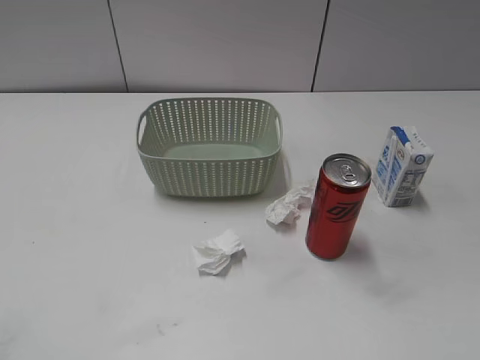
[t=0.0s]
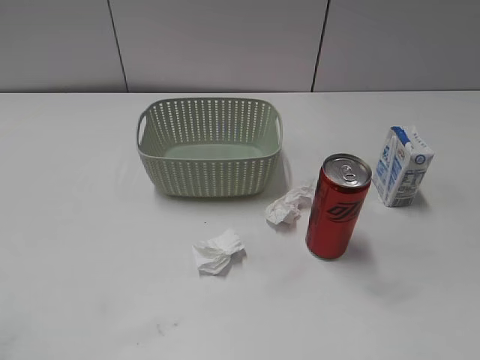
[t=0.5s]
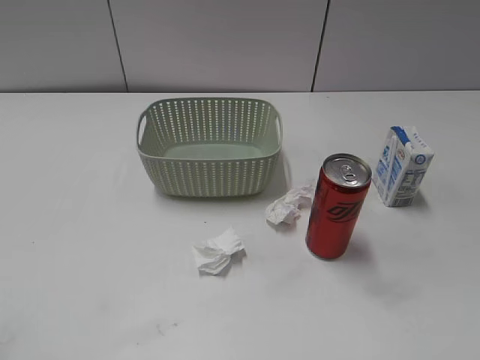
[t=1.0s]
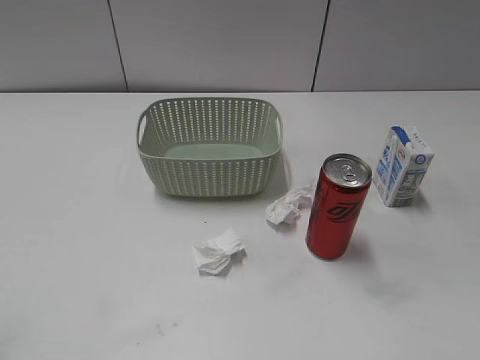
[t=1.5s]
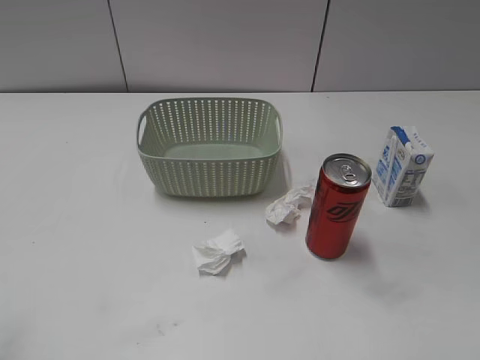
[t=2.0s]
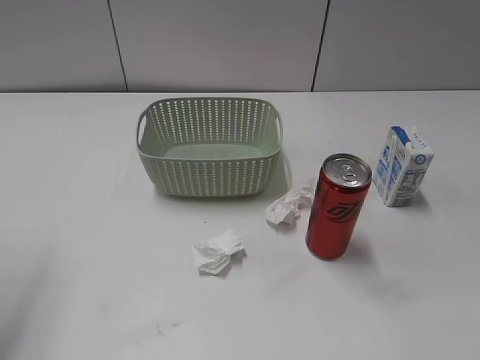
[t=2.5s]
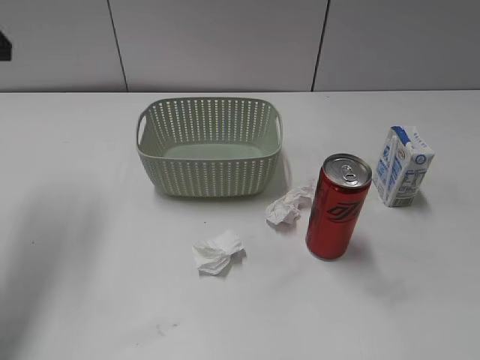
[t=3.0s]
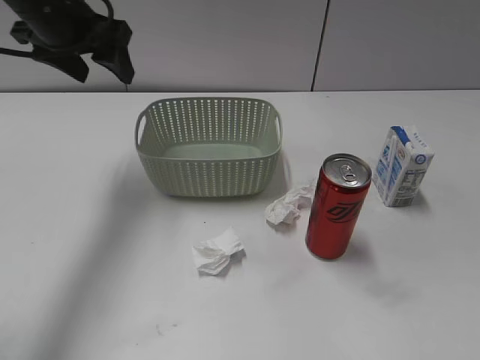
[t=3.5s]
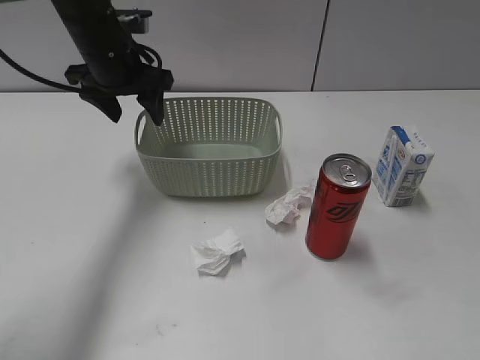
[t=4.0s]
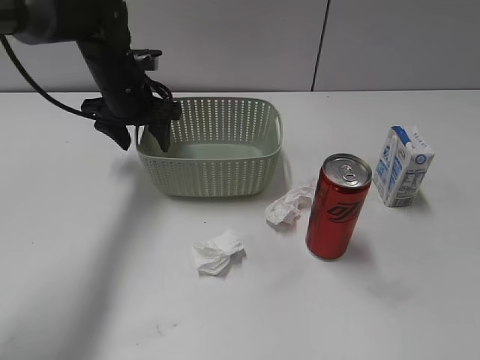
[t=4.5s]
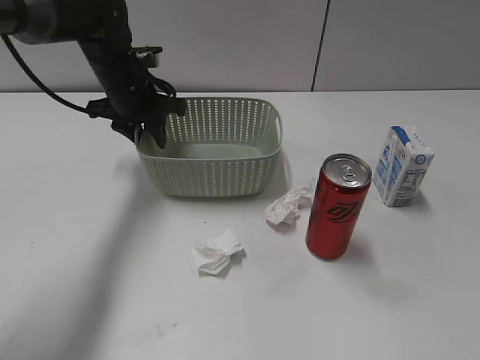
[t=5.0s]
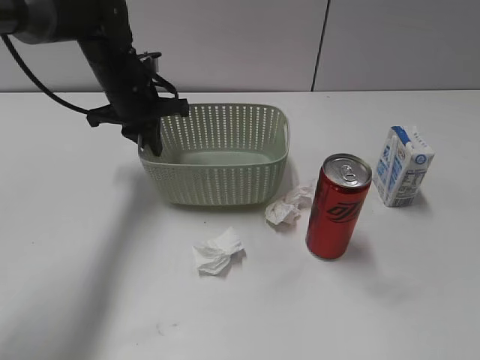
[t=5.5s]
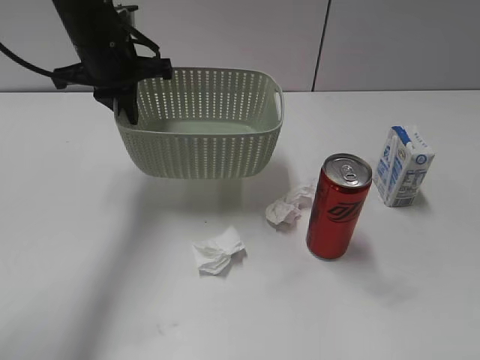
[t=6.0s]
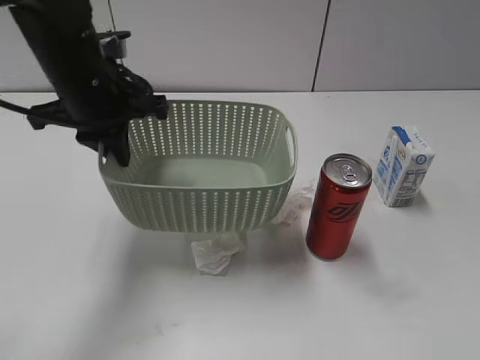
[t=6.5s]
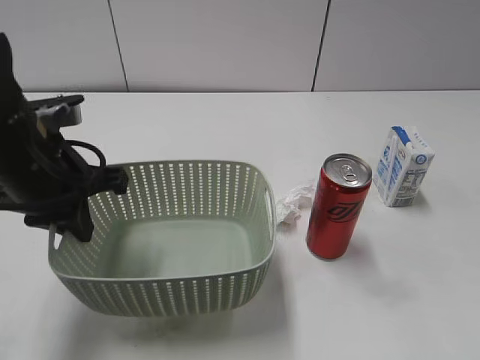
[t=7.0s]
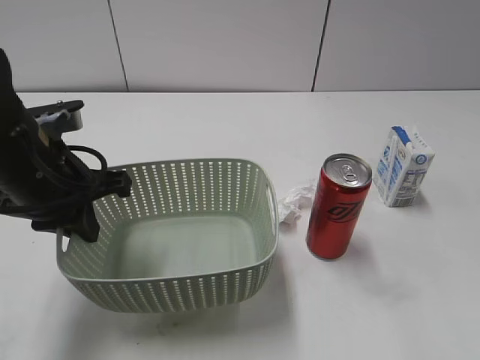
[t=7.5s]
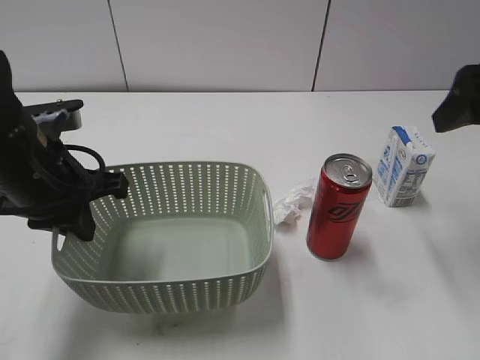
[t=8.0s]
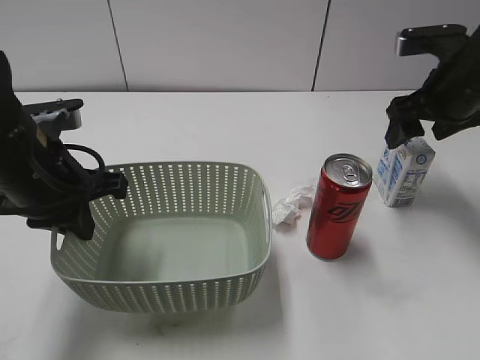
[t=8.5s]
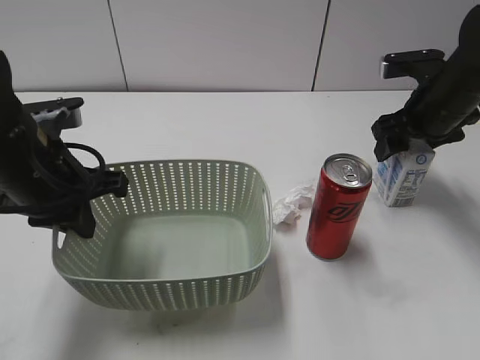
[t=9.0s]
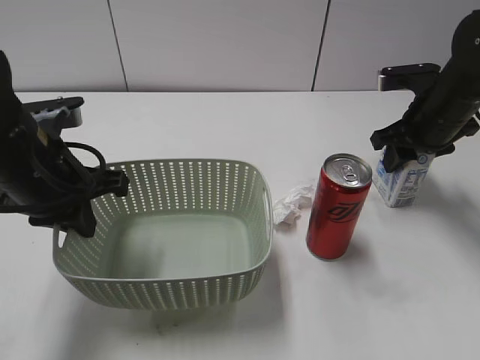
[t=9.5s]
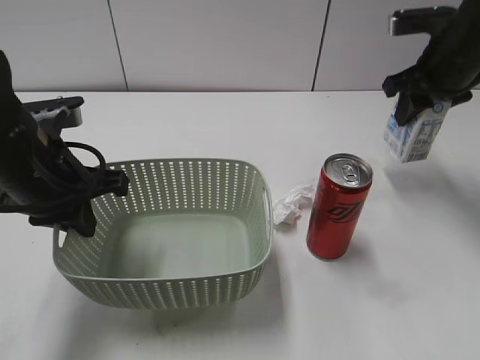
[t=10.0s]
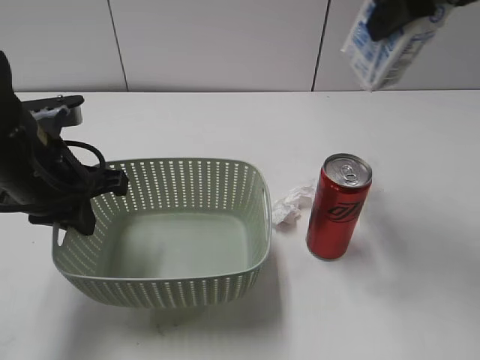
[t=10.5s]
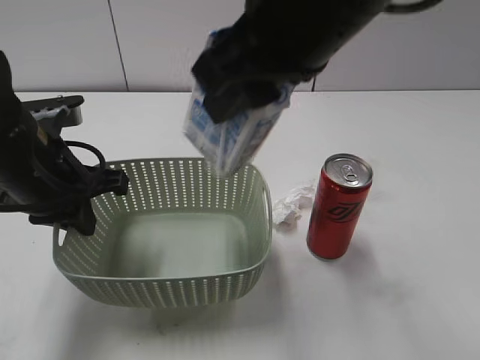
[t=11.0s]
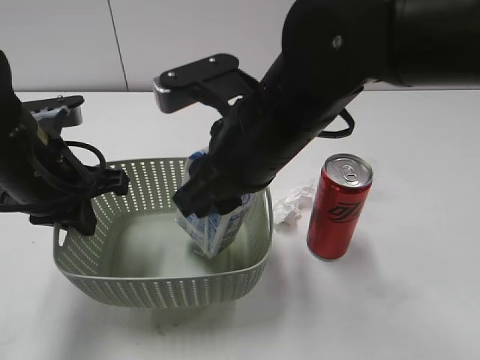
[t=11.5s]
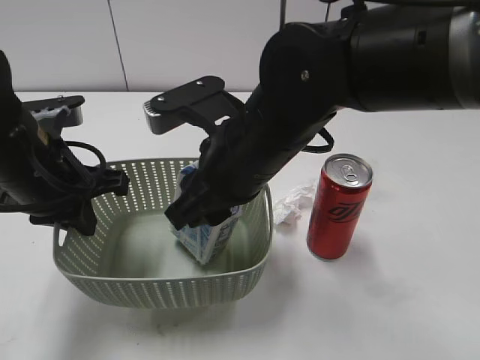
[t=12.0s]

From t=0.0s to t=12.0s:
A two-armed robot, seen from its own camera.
Step, from t=3.0s to t=5.0s: Grasp the basket with left gripper.
Step, from t=5.5s to t=7.0s: Lift the basket with left gripper.
Step, from t=7.5s to t=9.5s: Grasp the milk with right gripper.
From t=2.0s to t=4.0s: The left gripper shifts roughly 40 cm forward and to the right.
From t=4.0s to t=6.0s: The left gripper closes up.
From t=6.0s to t=8.0s: The right gripper heads forward, covering about 25 cm. Meanwhile the left gripper goes some 15 cm backward.
From t=8.0s to t=10.0s: The right gripper moves forward and downward, about 15 cm, and closes.
From t=10.0s to t=12.0s: The right gripper shifts about 30 cm to the left and backward.

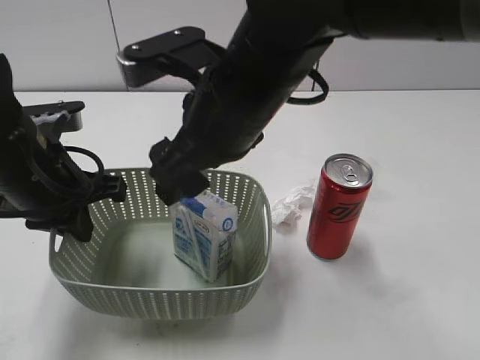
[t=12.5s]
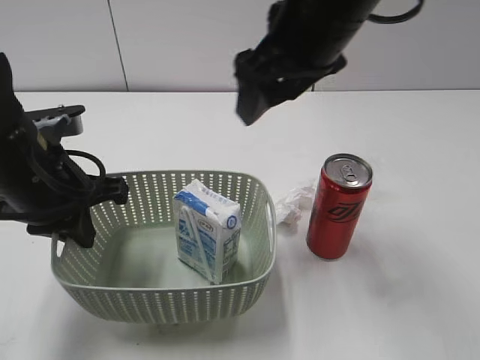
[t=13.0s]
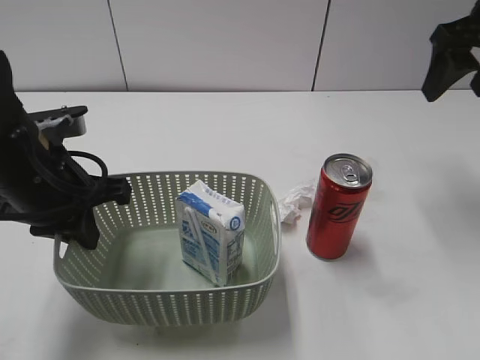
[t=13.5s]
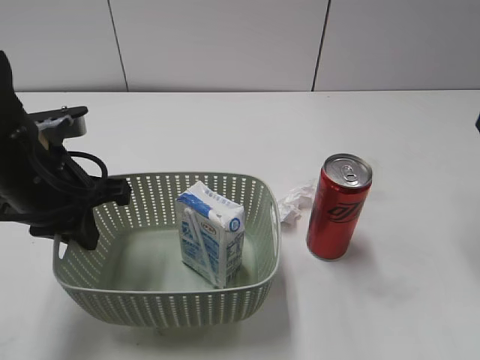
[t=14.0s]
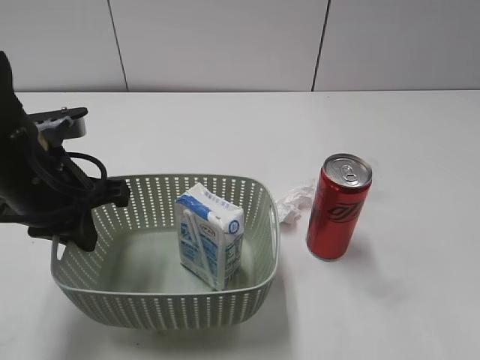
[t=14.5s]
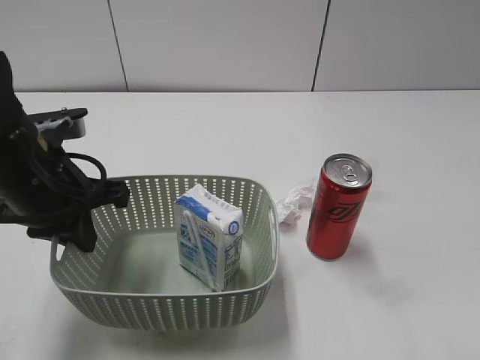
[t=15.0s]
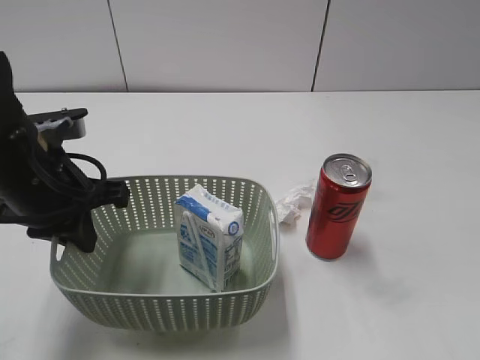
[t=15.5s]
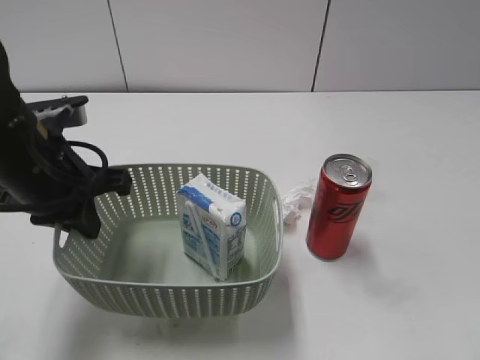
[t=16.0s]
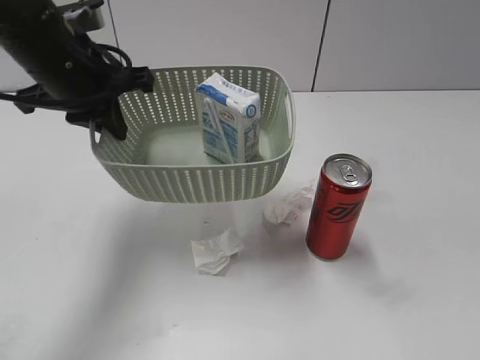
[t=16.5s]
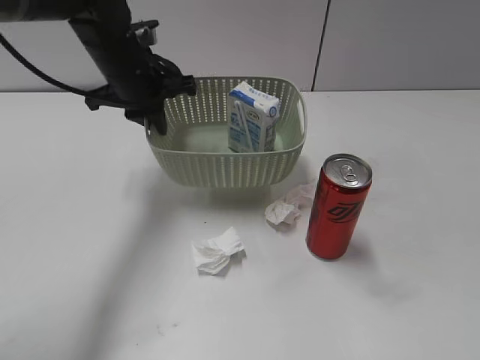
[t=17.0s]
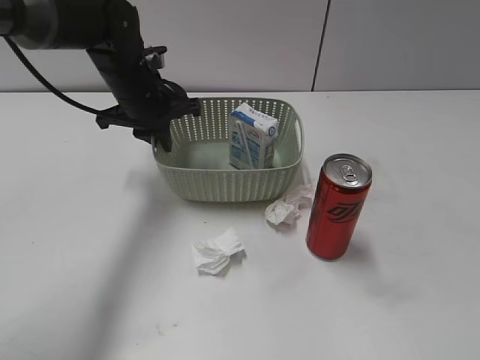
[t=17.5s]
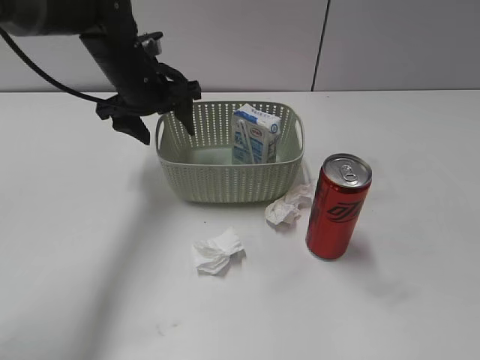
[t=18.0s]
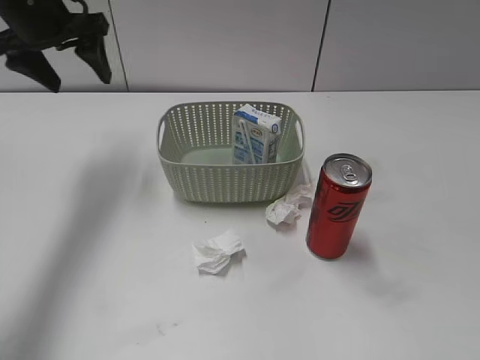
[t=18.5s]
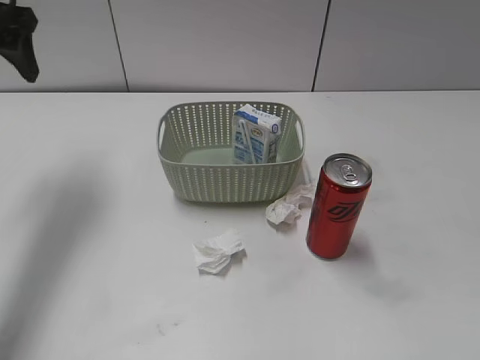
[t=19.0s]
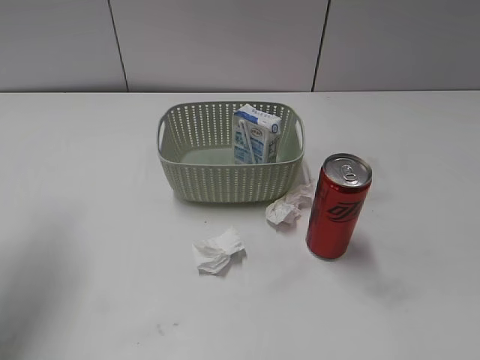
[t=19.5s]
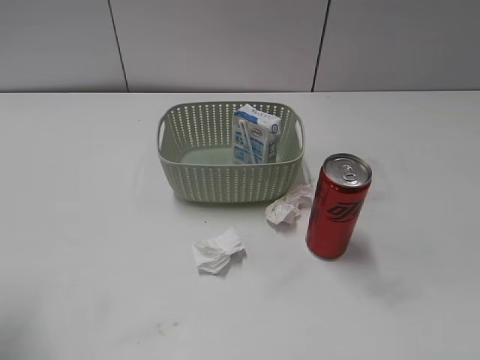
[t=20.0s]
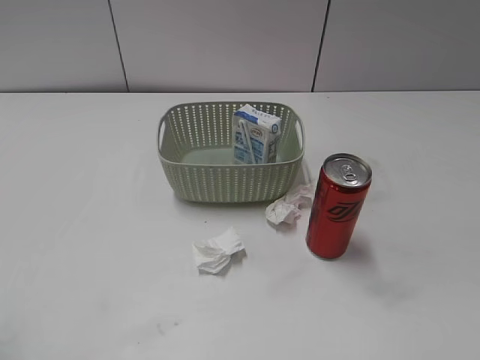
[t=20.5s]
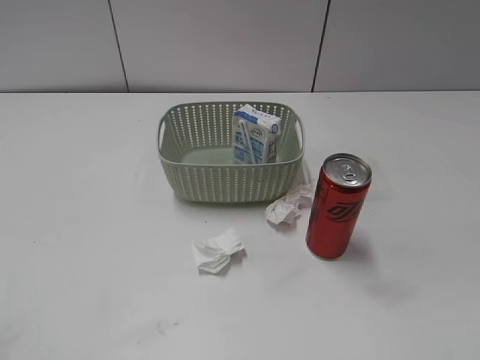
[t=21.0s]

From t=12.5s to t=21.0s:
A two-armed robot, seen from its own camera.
Step, from t=13.0s to t=18.0s: Place the basket on the table with left gripper.
From t=12.5s to t=14.5s: The right gripper goes about 30 cm to the right.
From t=14.5s to t=16.5s: The right gripper moves backward, some 15 cm. Meanwhile the left gripper heads forward and upward, covering approximately 10 cm.
From t=16.5s to t=19.0s: The left gripper moves to the left and upward, some 15 cm, and opens up.
From t=19.0s to t=21.0s: The left gripper is displaced backward by some 35 cm.

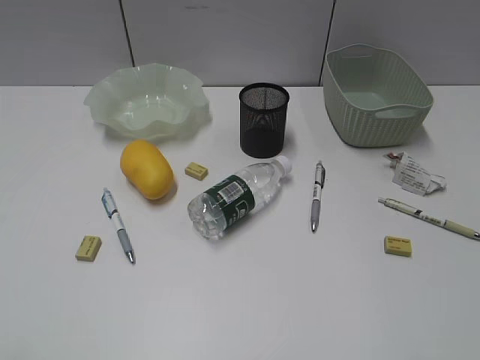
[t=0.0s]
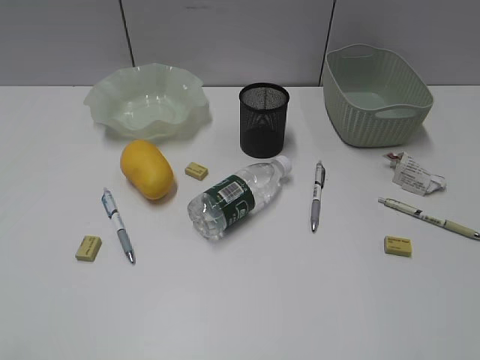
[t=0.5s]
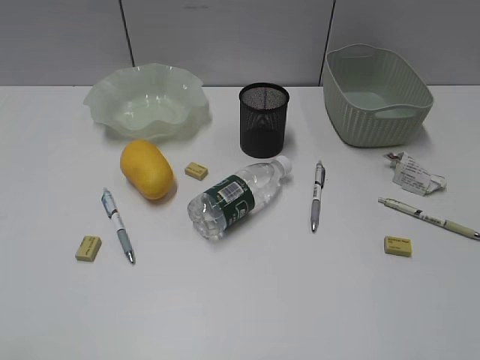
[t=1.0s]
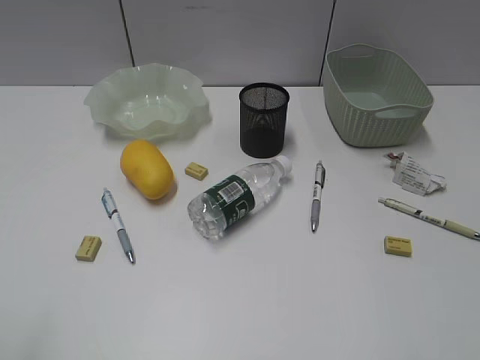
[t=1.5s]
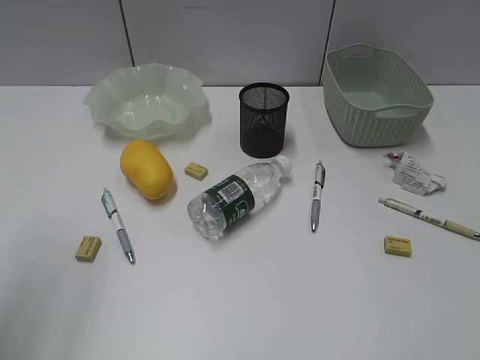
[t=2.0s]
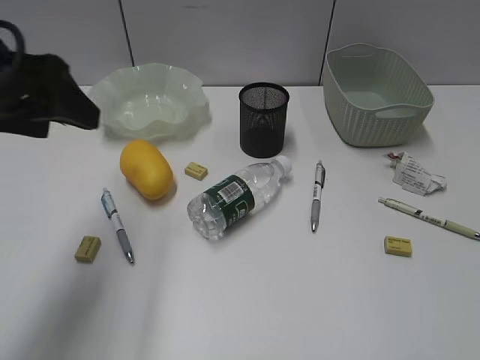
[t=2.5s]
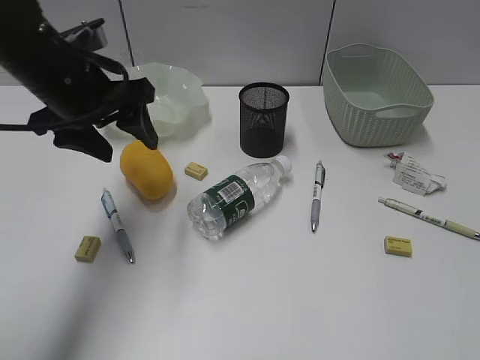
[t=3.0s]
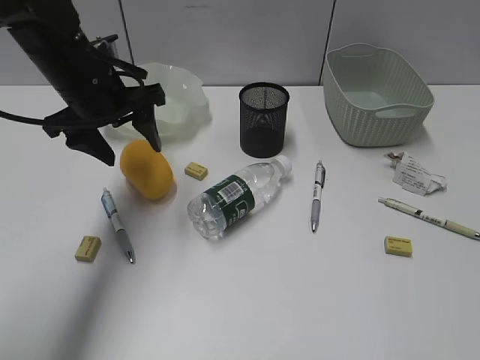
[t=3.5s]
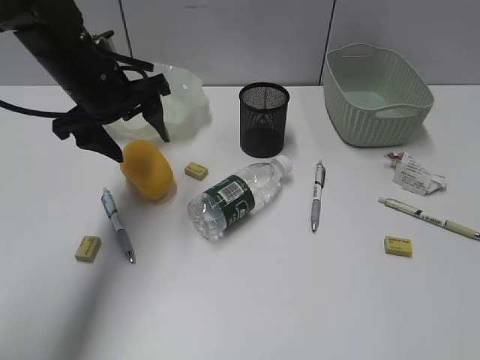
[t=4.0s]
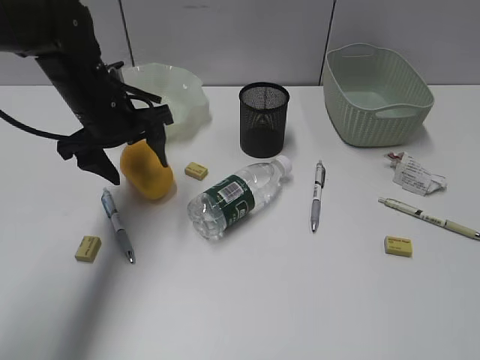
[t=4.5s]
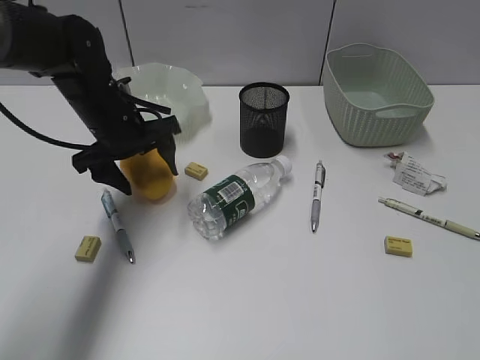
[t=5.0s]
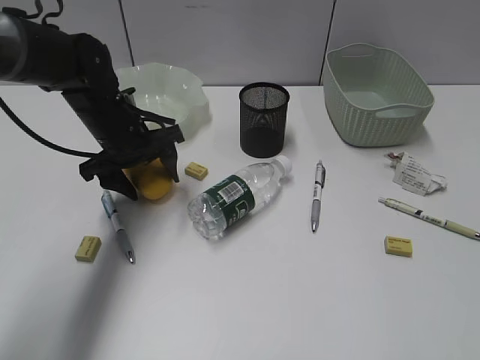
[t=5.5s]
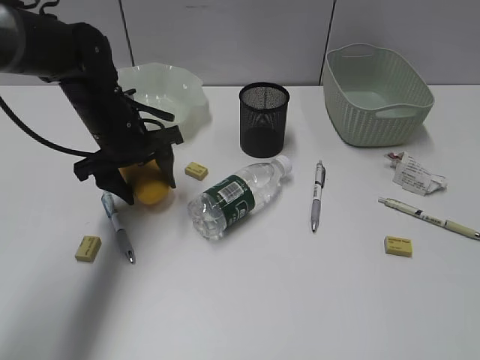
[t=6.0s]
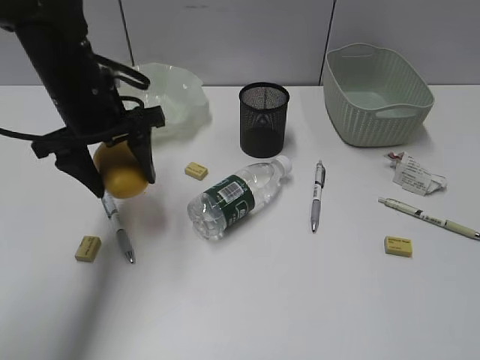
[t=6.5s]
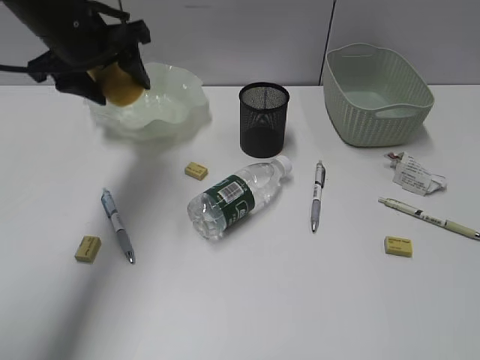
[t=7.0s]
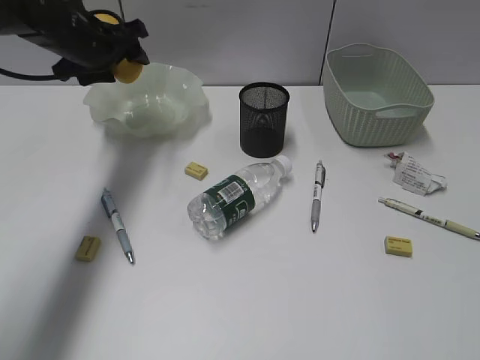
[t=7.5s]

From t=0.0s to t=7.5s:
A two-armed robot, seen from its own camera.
Step, from t=2.5s to t=5.5s: Grasp the mango with left gripper.
From t=2.0s to t=4.0s: The left gripper goes some 30 cm forward, downward and to the right.
From t=4.0s to t=5.5s: The left gripper goes roughly 10 cm downward.
From t=5.5s to t=7.5s: The left gripper moves upward and forward, approximately 10 cm.
